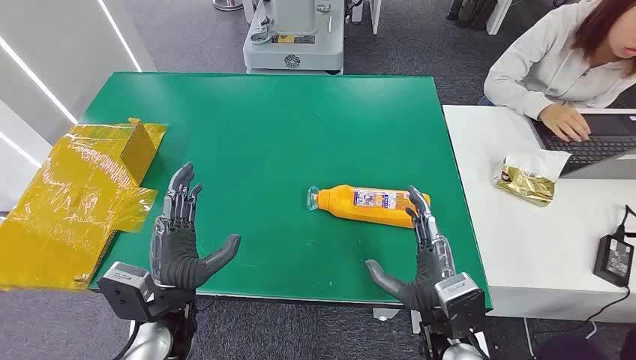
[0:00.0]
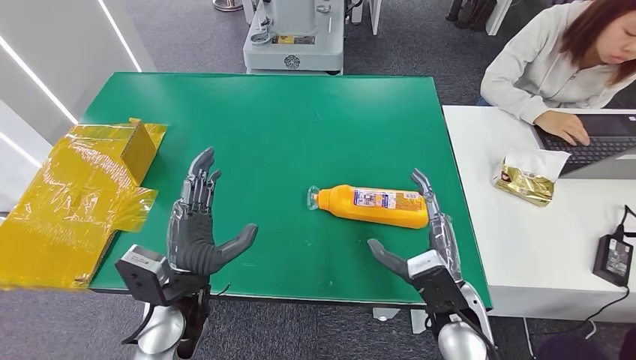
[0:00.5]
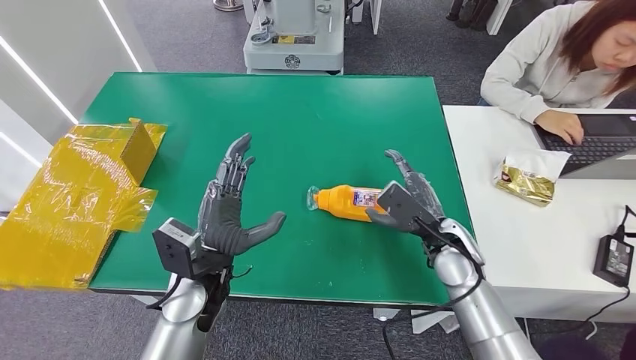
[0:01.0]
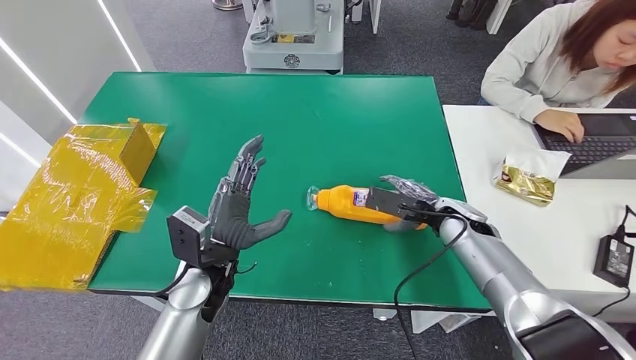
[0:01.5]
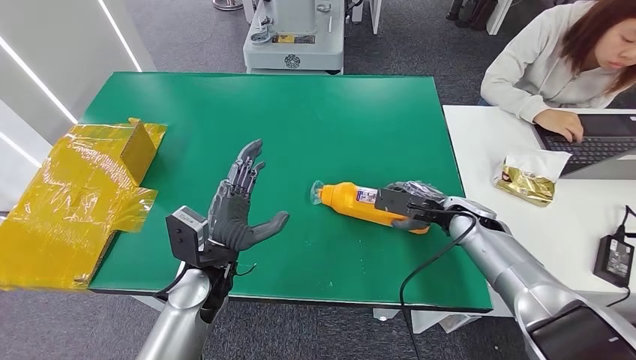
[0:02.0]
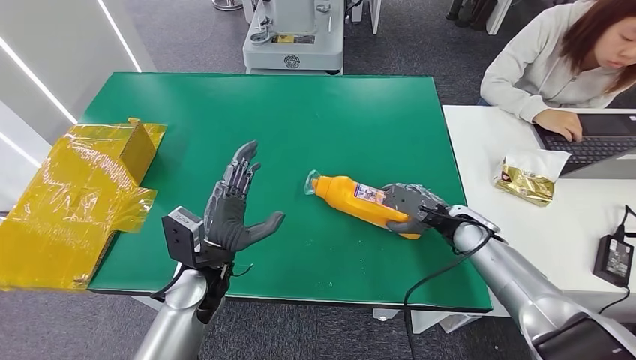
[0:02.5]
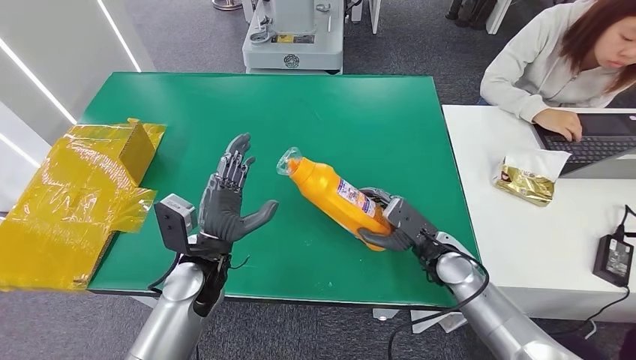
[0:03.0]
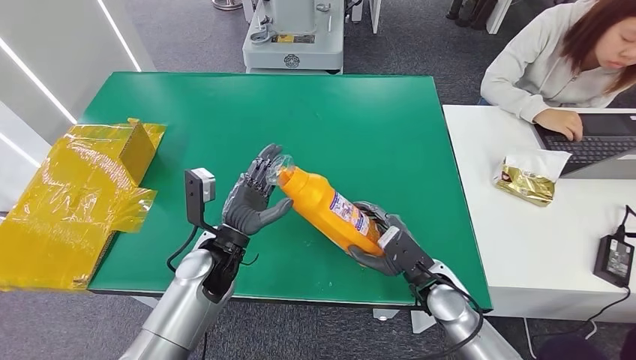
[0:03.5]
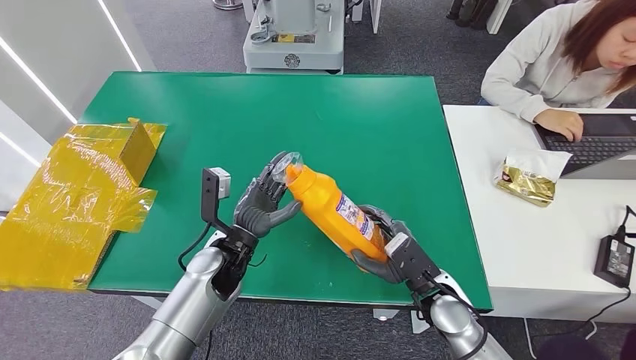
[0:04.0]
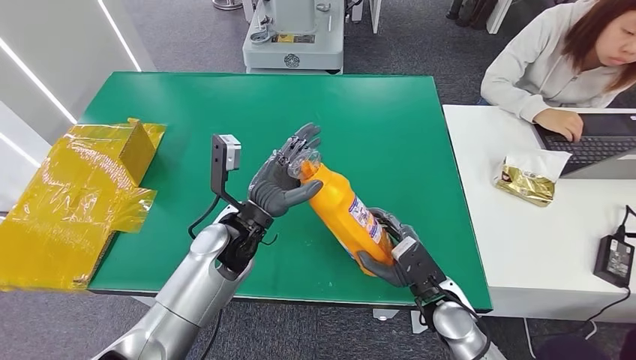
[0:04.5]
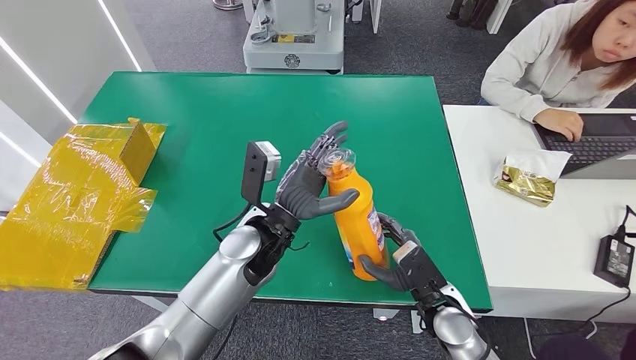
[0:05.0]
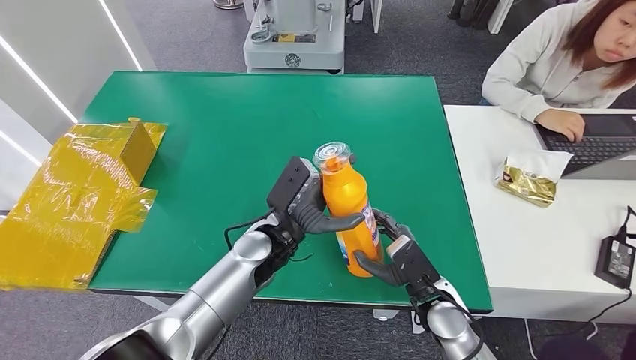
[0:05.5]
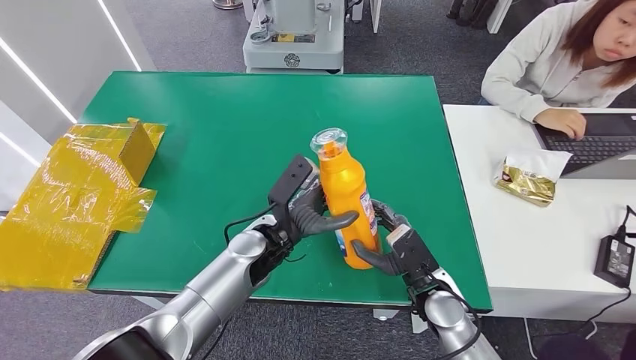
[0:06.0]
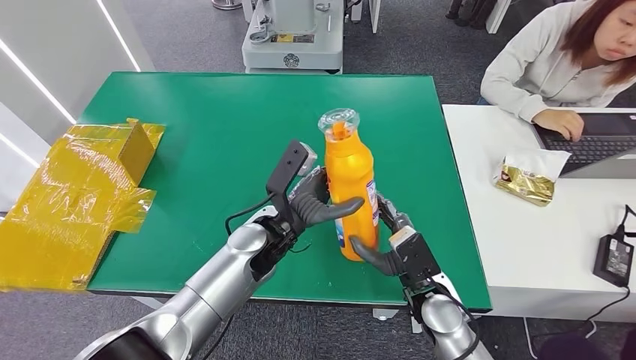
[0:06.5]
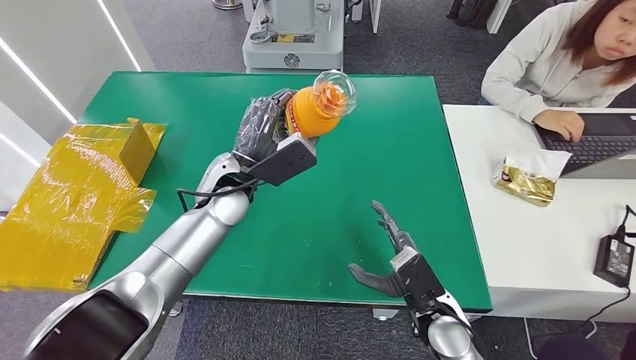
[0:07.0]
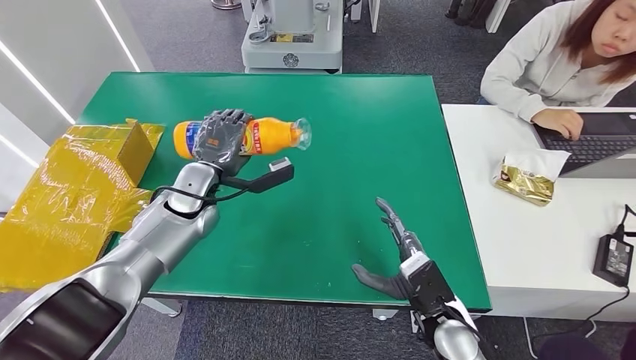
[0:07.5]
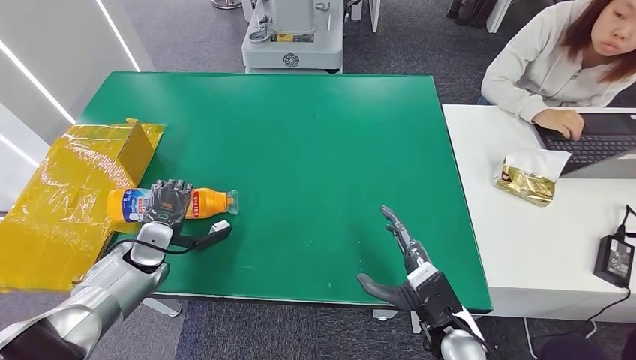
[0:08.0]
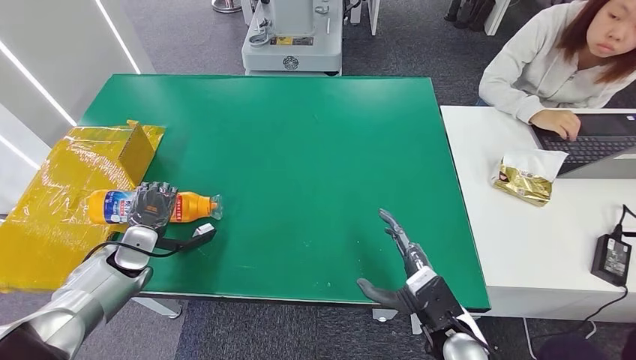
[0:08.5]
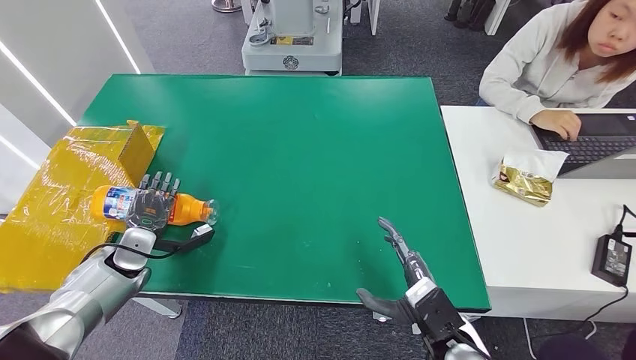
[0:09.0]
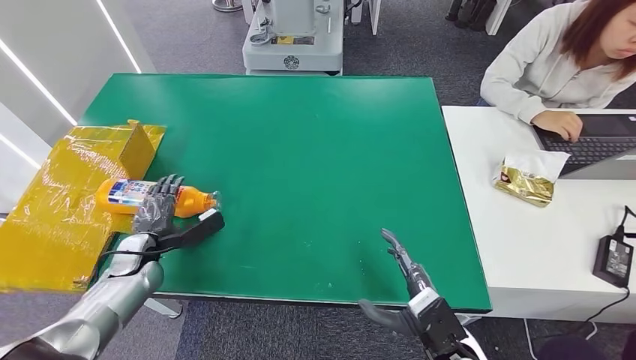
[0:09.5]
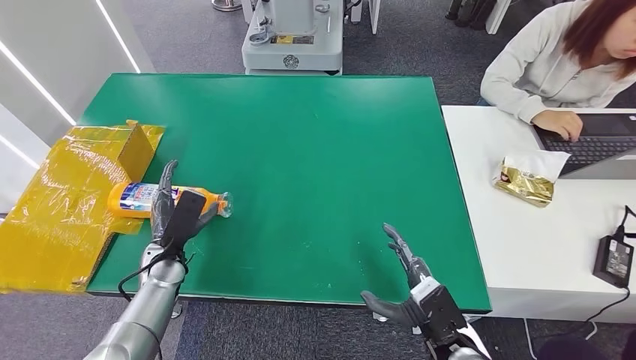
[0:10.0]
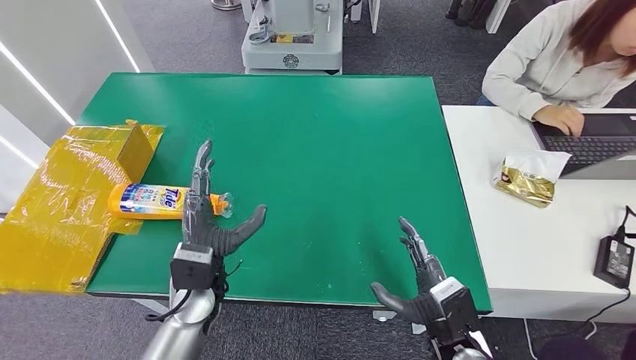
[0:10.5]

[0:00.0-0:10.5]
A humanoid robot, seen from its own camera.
Step, 0:00.0 to 0:06.0: Pick up the bottle from the table.
Step, 0:07.0 to 0:10.5: Turn the bottle to the front side.
0:02.0 to 0:04.0: The right hand is displaced backward and to the left by roughly 15 cm.
0:04.0 to 0:06.5: The left hand travels to the right and upward by roughly 10 cm.
0:08.5 to 0:10.5: The left hand goes about 25 cm to the right.
